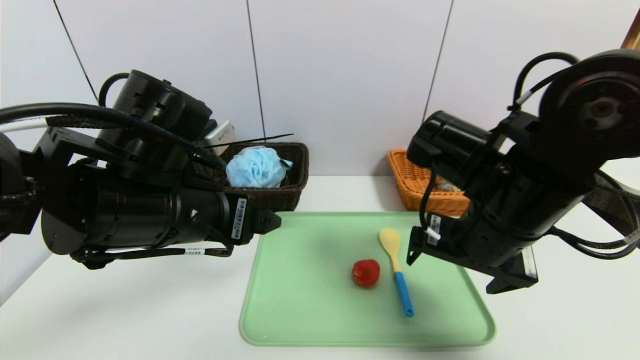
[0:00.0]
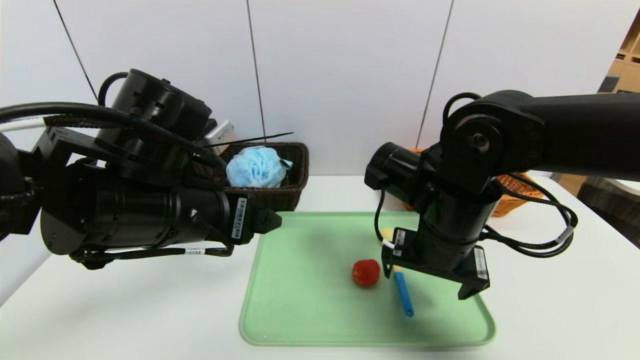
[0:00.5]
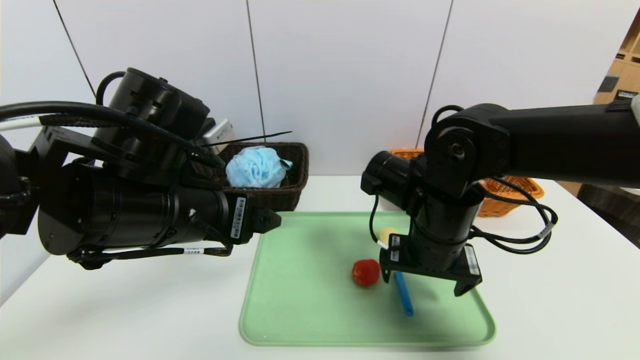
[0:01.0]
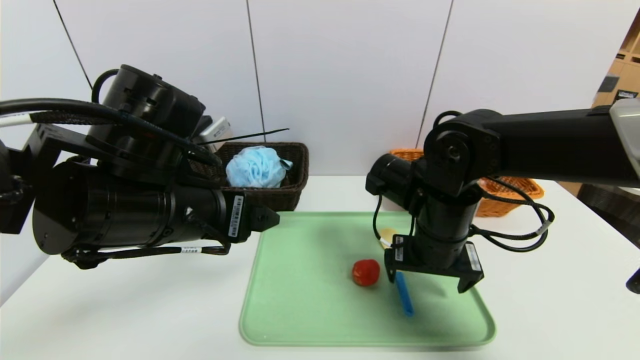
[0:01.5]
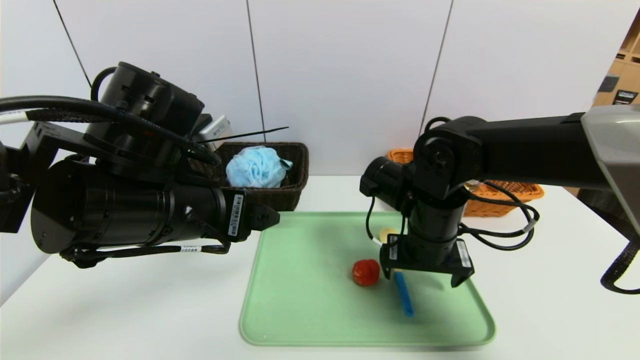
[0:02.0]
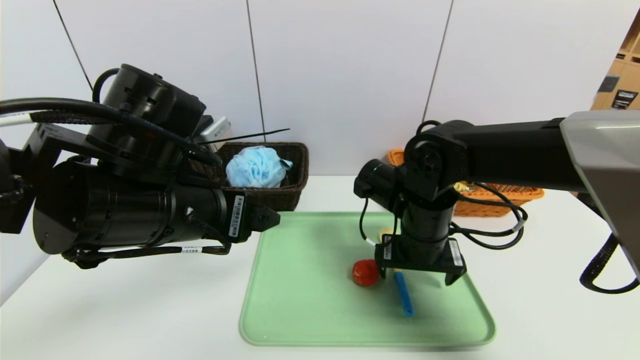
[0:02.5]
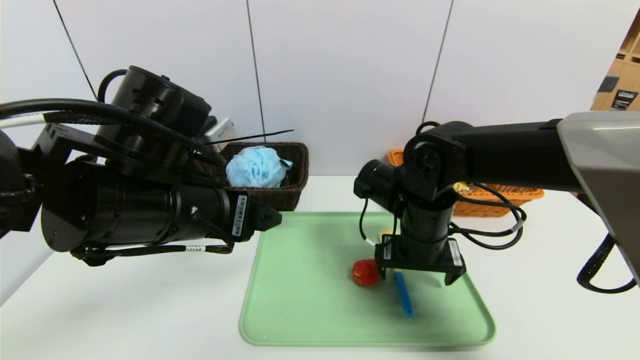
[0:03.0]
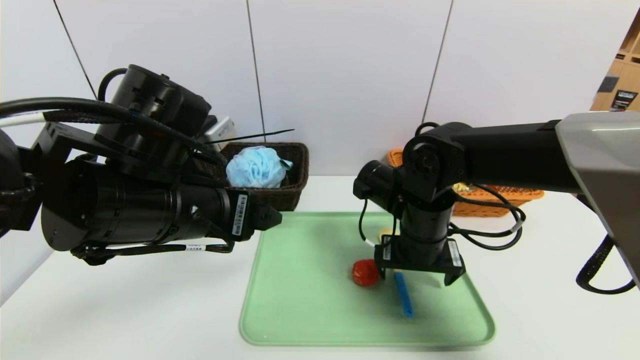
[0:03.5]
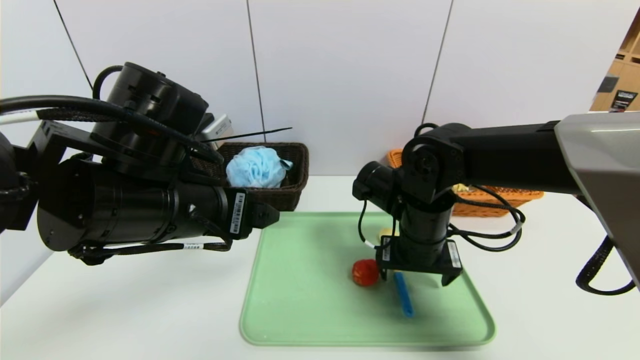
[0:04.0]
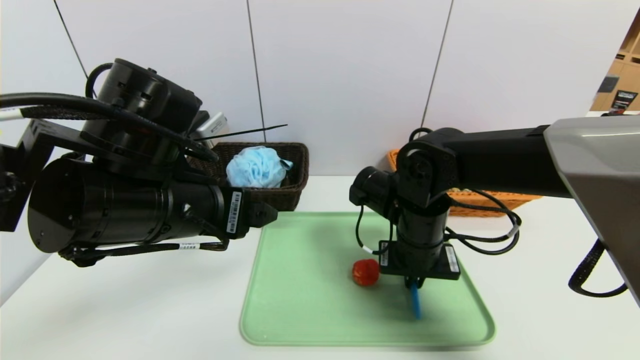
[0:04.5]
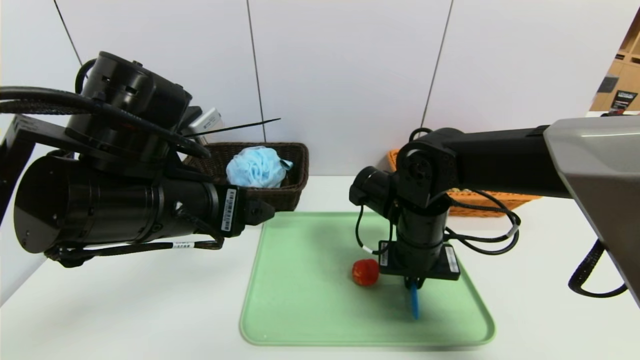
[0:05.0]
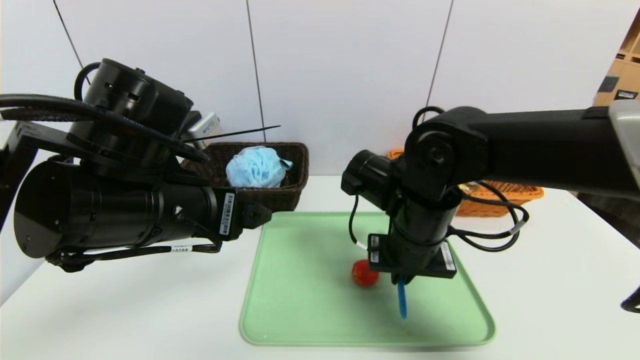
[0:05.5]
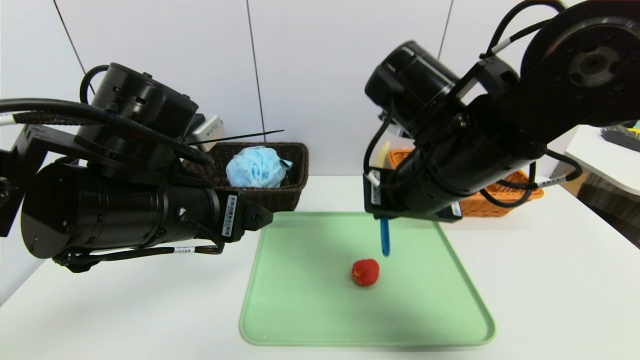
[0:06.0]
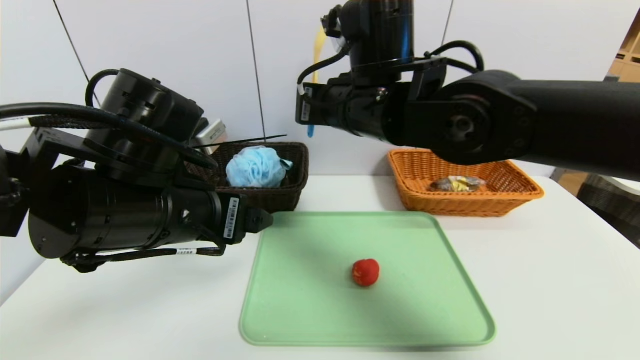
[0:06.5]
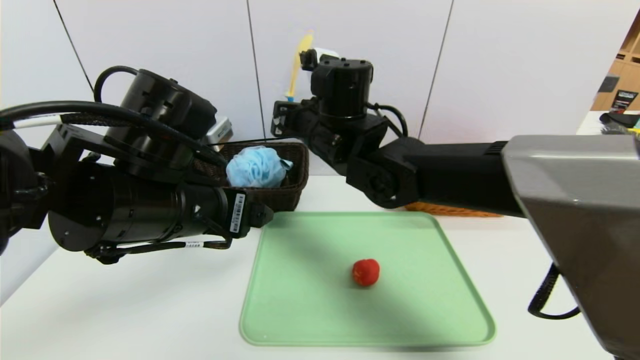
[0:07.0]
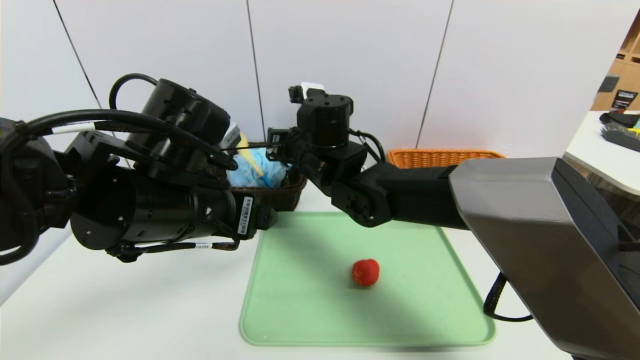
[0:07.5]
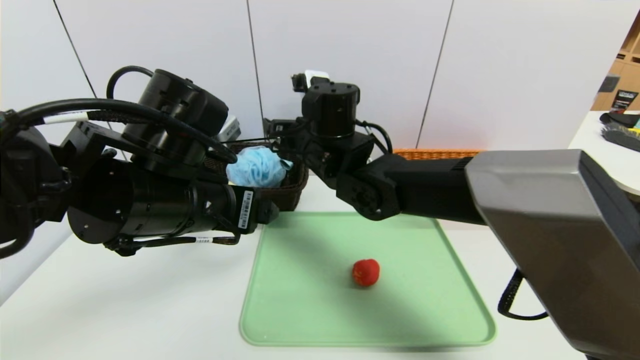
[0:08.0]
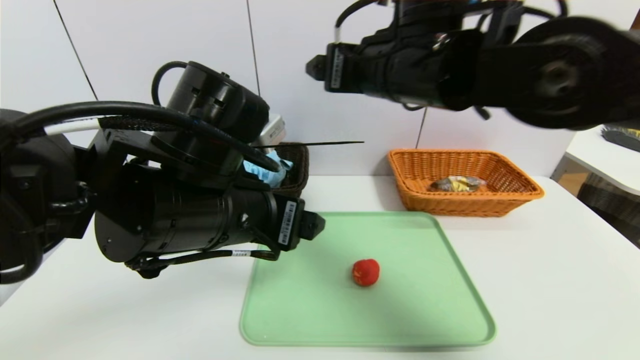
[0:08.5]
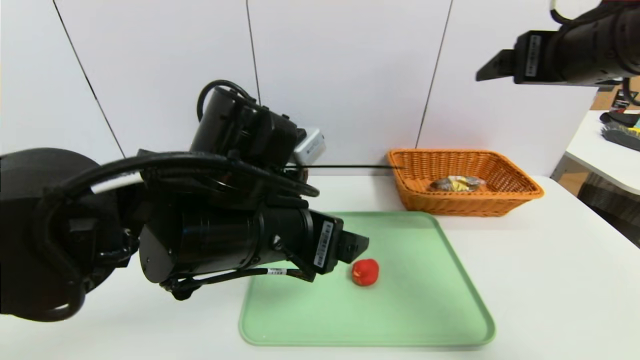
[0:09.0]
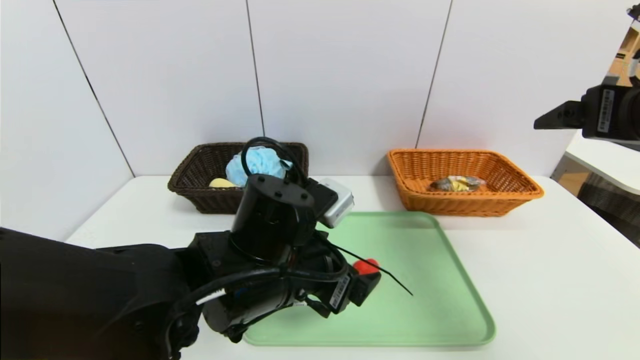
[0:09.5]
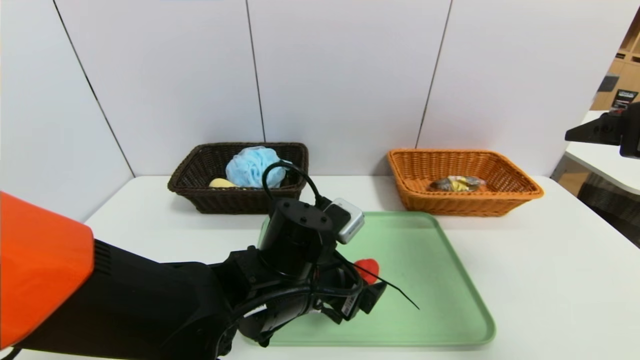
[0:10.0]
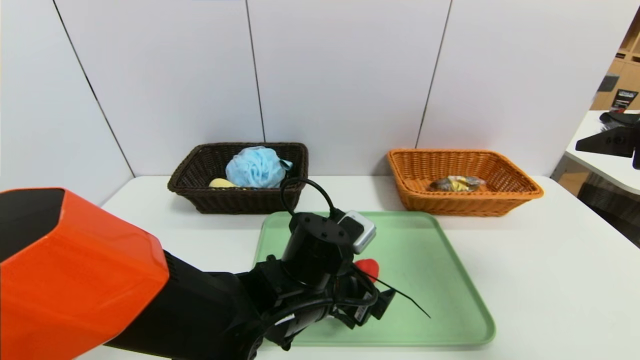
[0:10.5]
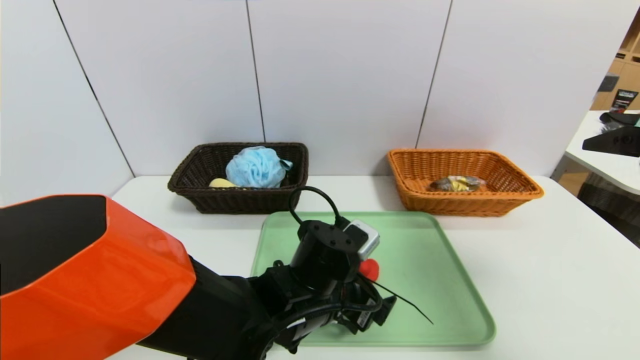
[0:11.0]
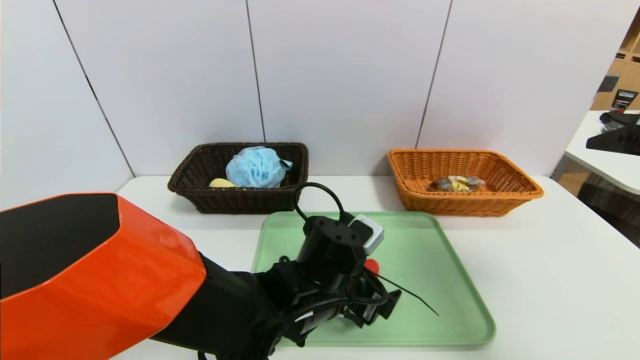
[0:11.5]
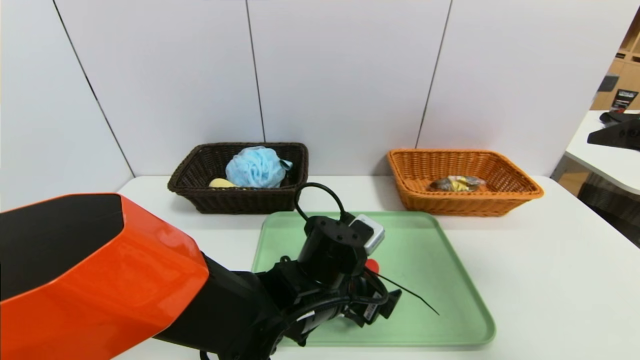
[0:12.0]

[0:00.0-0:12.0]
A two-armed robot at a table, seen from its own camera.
Task of the whole recording: place the food in the right basket with the right gripper, and place the non food items in the left basket with the left gripper.
0:00.0 to 0:02.0: The right gripper is displaced downward and forward by some 10 cm.
0:02.0 to 0:04.0: The grippers stay close to where they were, moving slightly.
0:04.0 to 0:06.0: The right gripper moves upward and backward, about 15 cm, and closes up.
0:06.0 to 0:08.0: The right gripper goes some 15 cm forward and to the left, and opens up.
0:08.0 to 0:10.0: The right gripper travels to the right and backward by about 35 cm. The left gripper shifts approximately 15 cm downward and to the right.
0:10.0 to 0:12.0: The left gripper changes place by approximately 5 cm.

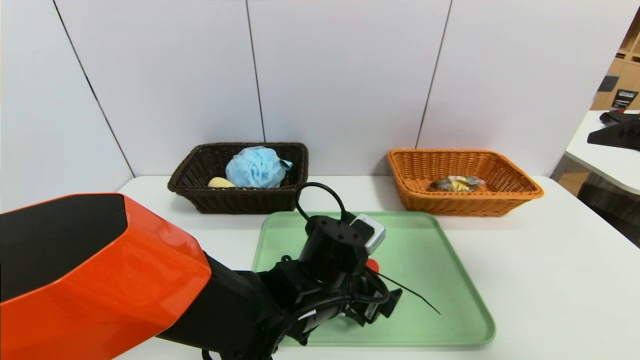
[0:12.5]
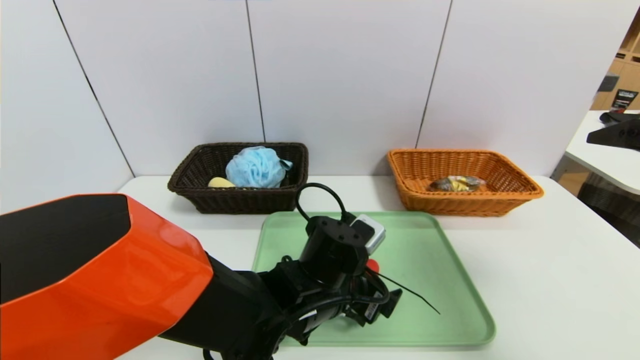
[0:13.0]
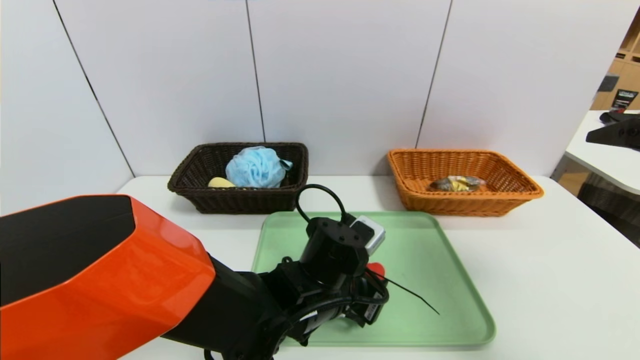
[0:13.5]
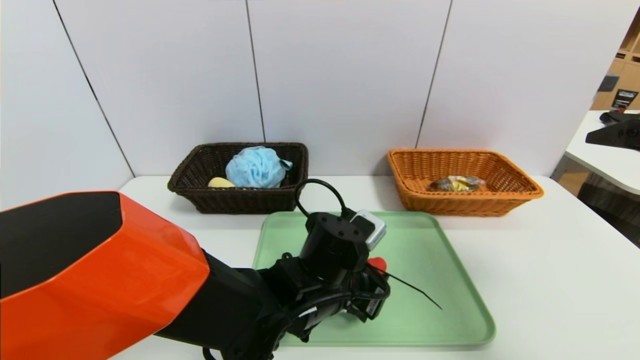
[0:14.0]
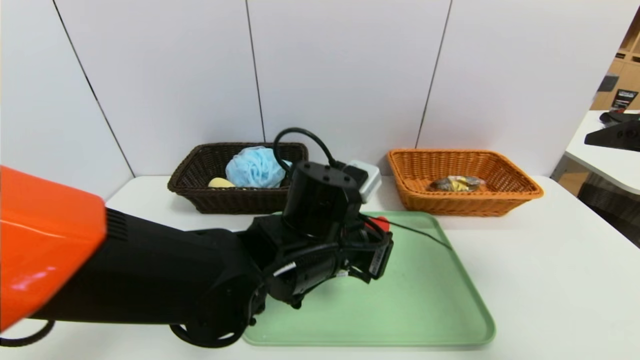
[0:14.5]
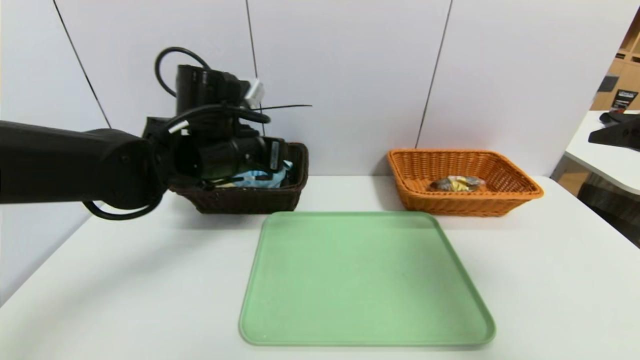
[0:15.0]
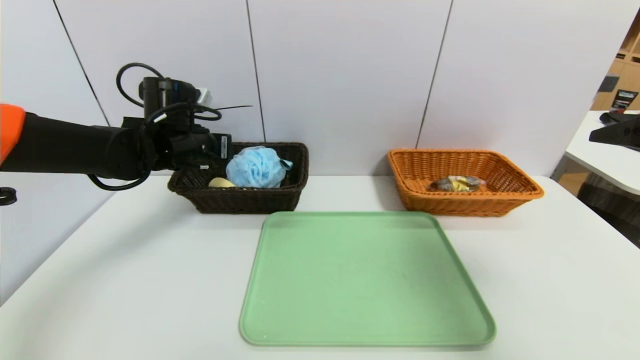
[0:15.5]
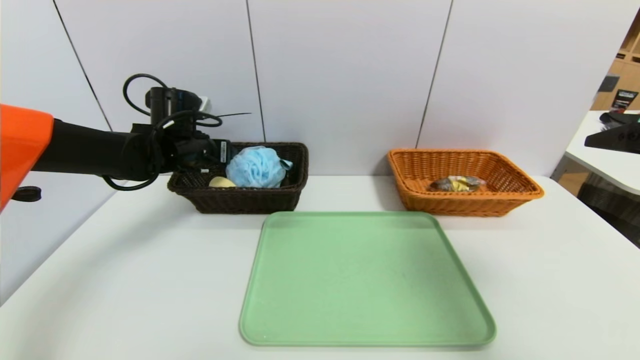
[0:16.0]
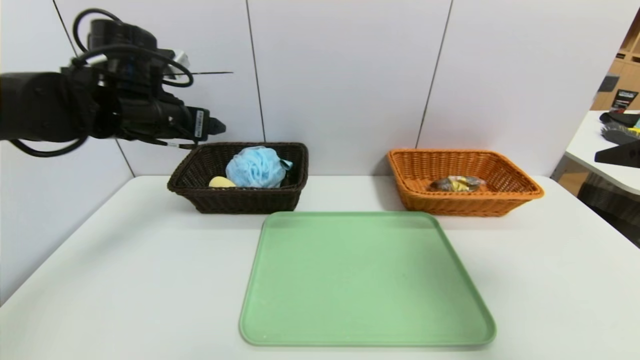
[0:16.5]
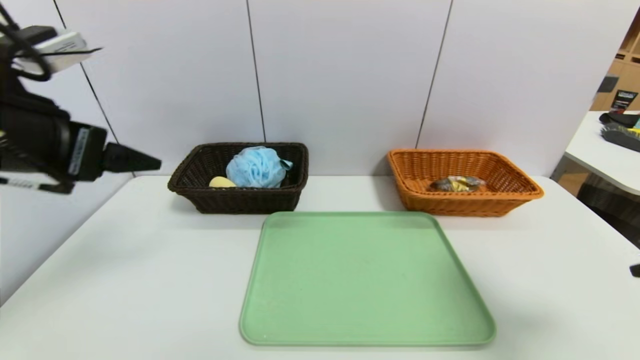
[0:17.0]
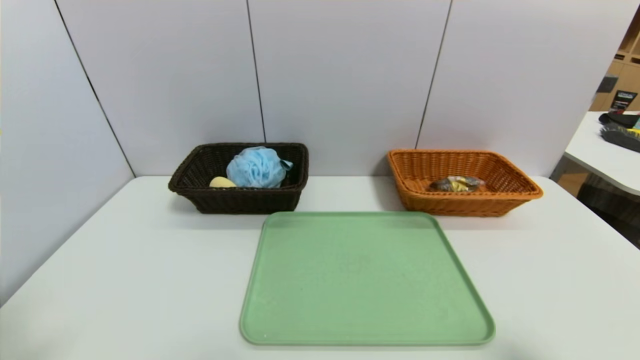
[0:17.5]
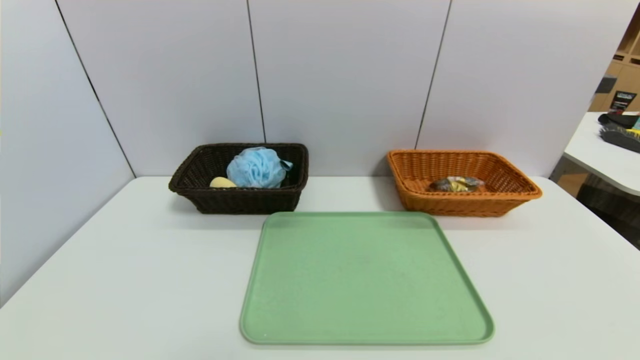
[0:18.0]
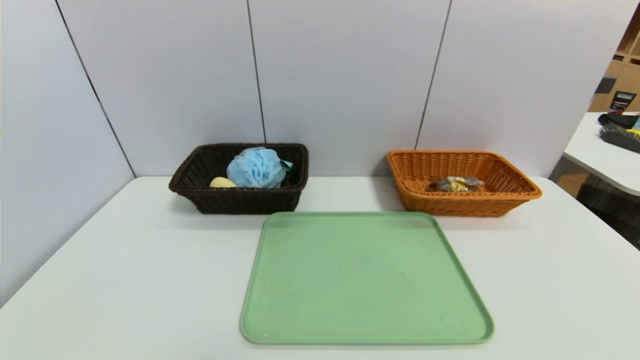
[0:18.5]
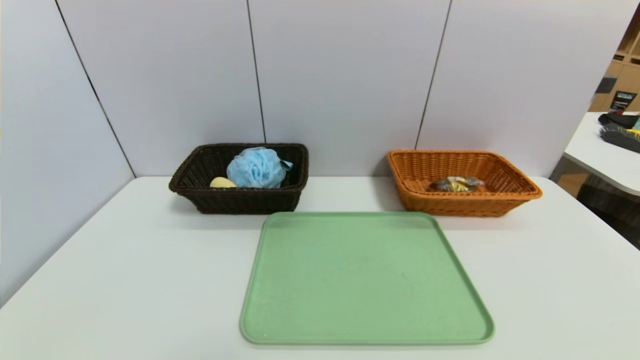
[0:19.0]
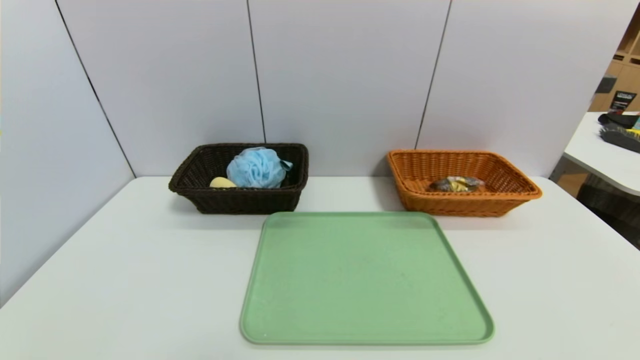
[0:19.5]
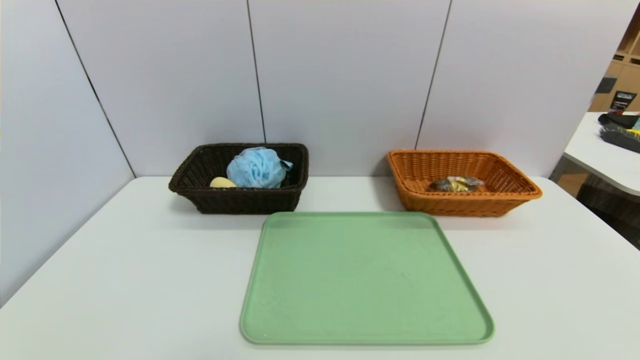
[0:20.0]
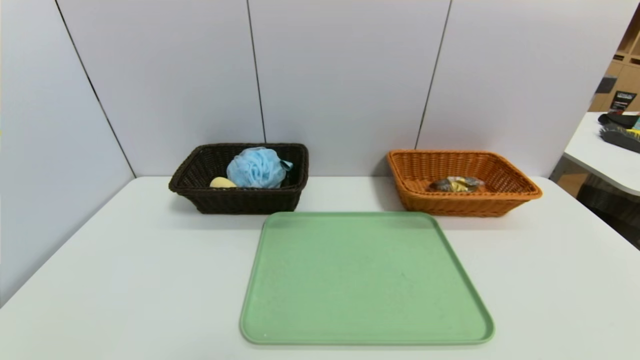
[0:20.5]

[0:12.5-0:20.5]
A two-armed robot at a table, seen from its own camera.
Task of the whole recording: place the food in the right basket with the right gripper, and place the non food items in the left basket with the left gripper.
Step, 0:12.5 to 0:16.0: Grasp the red duck and put it in the left basket.
0:12.5 to 0:14.5: The left gripper shifts roughly 10 cm upward, and closes up.
0:14.5 to 0:16.5: The left gripper moves to the left, upward and forward, some 25 cm, and opens its fingers.
0:16.5 to 0:18.5: The right gripper heads backward and downward, covering approximately 30 cm. The left gripper heads backward, covering roughly 40 cm.
